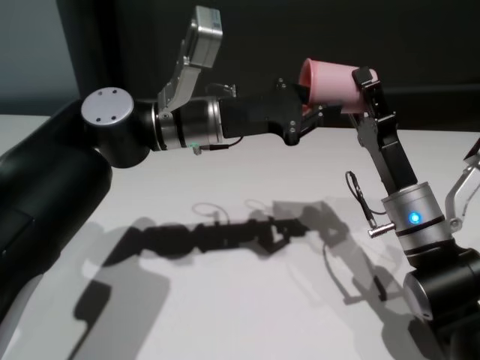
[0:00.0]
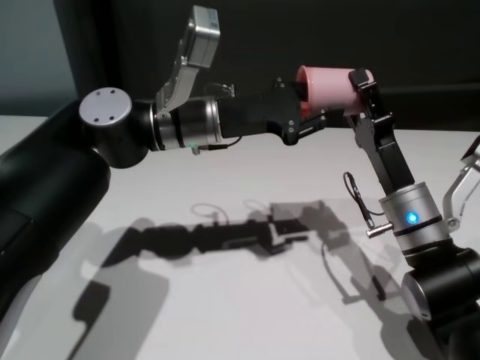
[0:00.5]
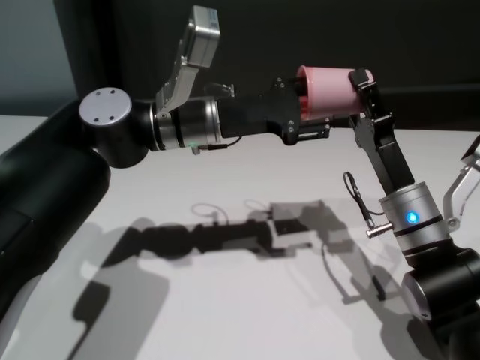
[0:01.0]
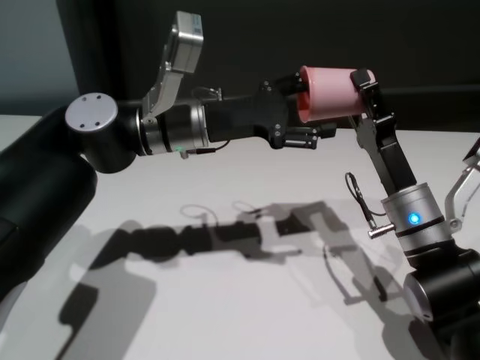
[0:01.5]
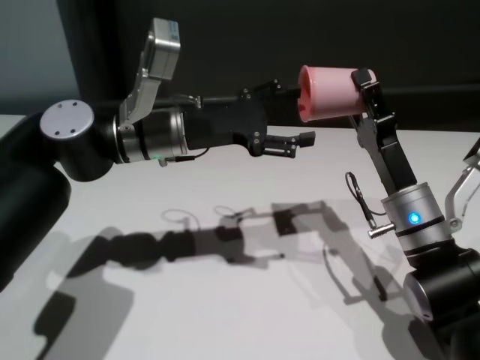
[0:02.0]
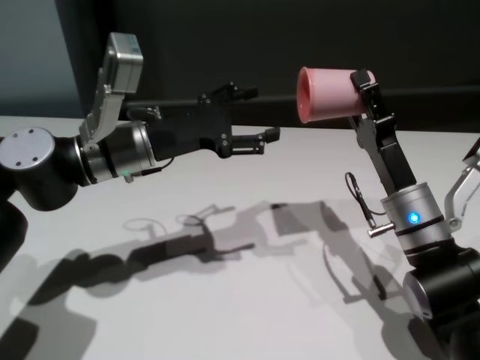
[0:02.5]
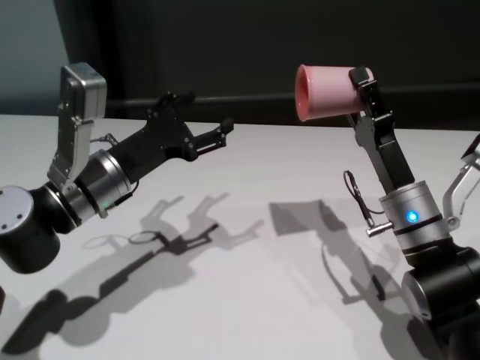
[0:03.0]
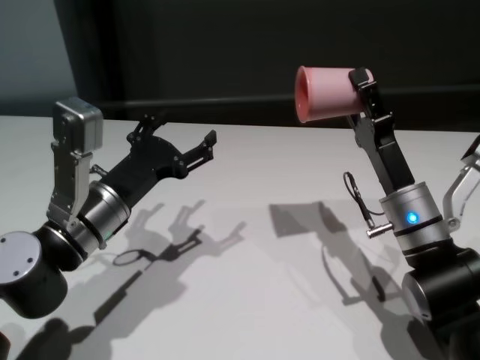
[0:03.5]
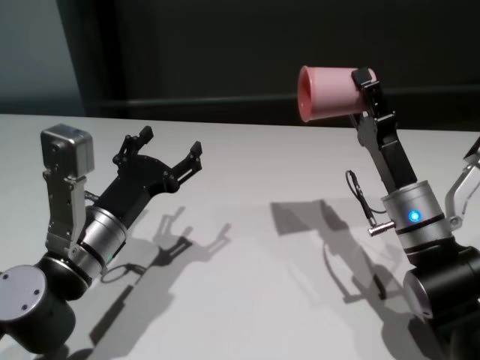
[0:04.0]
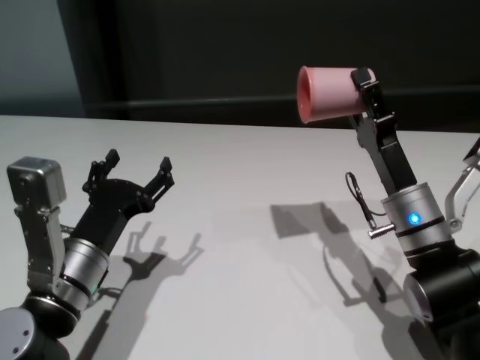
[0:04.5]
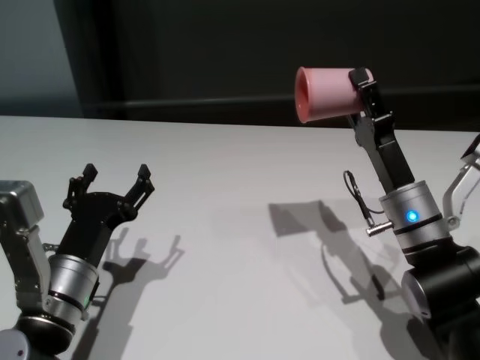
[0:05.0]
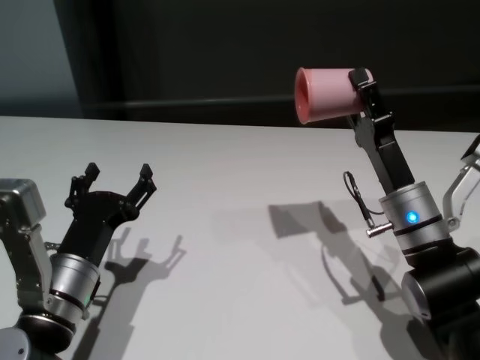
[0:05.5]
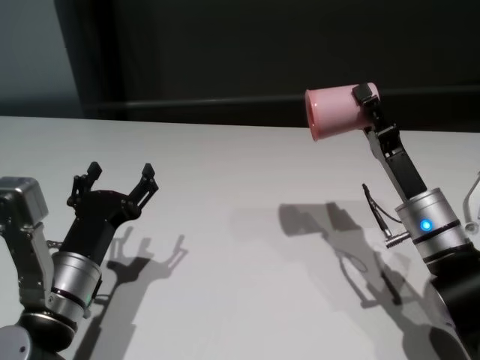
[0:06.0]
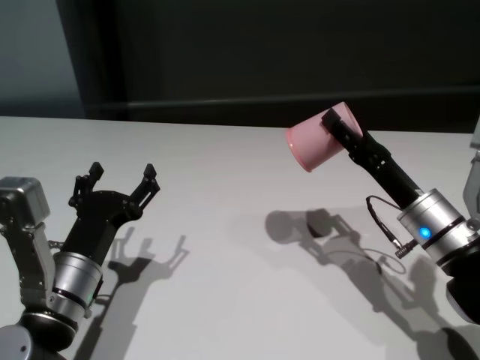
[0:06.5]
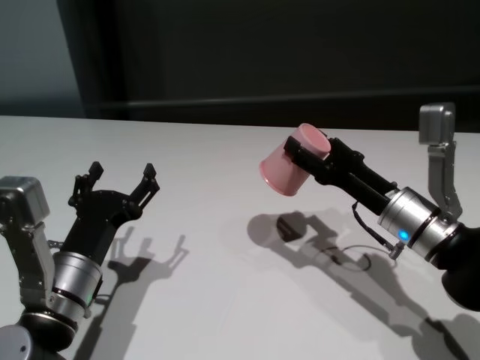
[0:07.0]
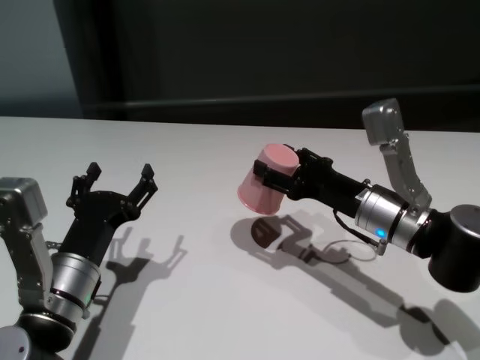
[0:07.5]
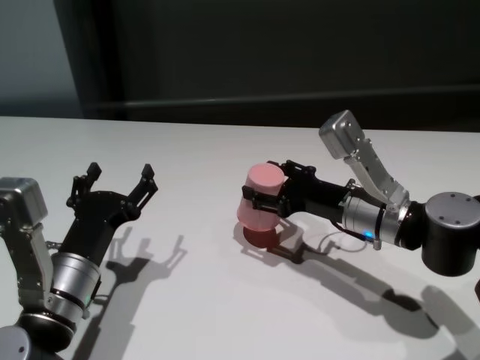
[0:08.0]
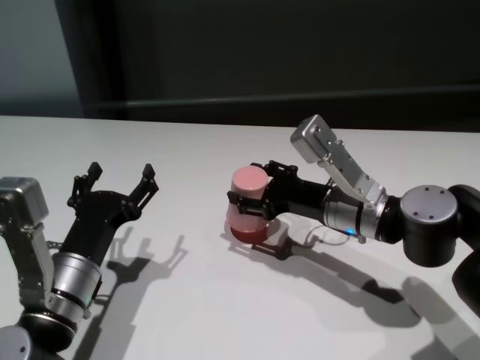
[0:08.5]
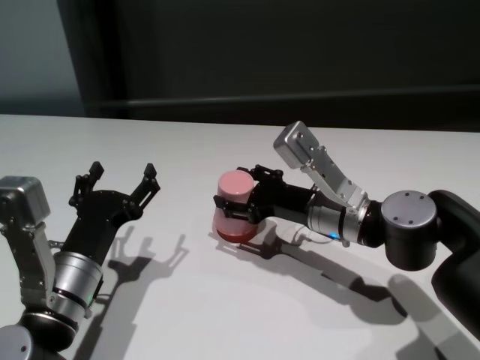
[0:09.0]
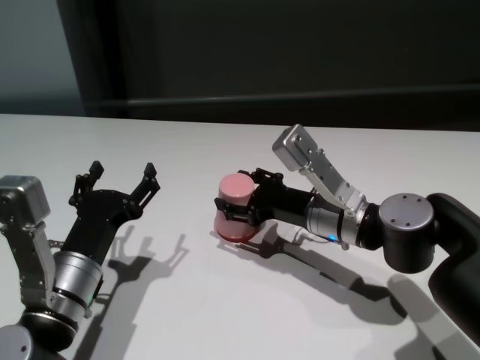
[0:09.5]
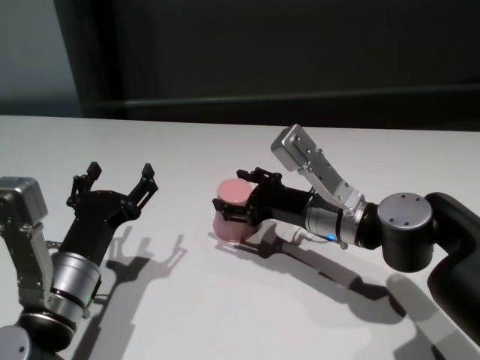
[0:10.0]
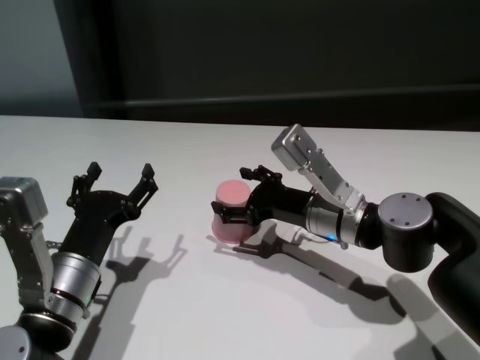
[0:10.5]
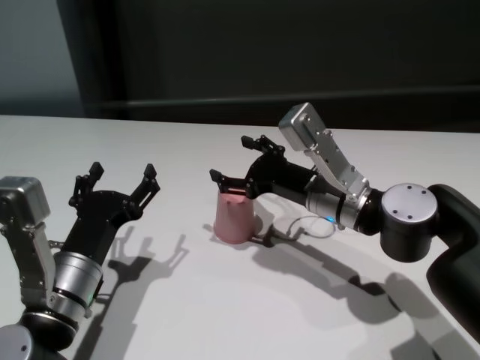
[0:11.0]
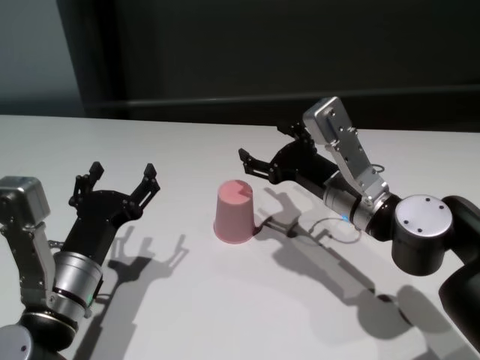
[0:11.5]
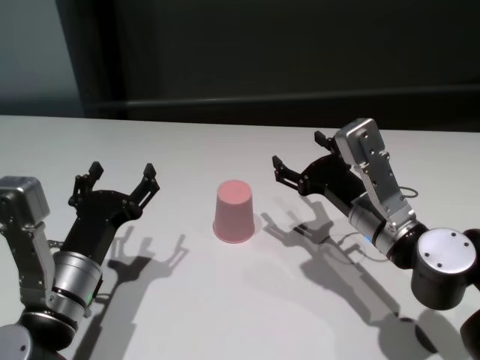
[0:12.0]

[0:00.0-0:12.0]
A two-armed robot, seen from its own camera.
Task of the whole recording: On the white table pick up the cup with one hand and transfer it to the other hand before turning it over.
Step, 0:00.0 to 0:02.0: Pass the cup to the right gripper.
Step, 0:03.0 to 0:10.5: Place the cup on the table with right gripper.
